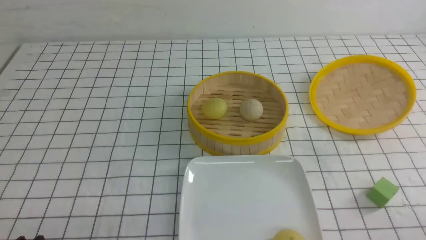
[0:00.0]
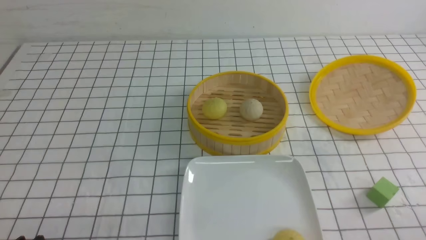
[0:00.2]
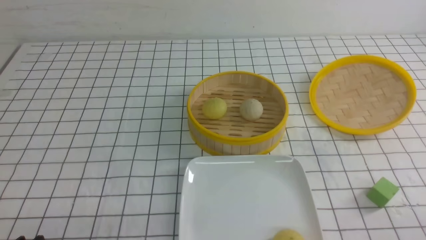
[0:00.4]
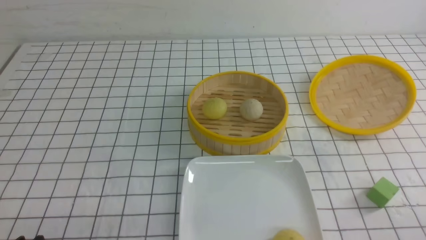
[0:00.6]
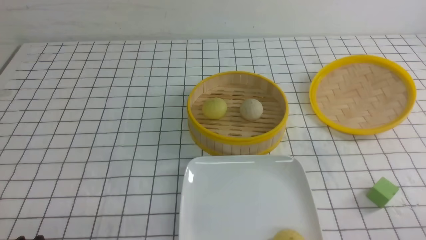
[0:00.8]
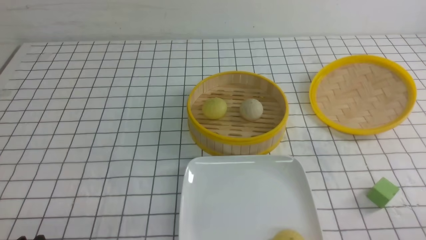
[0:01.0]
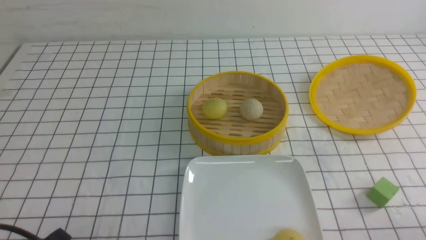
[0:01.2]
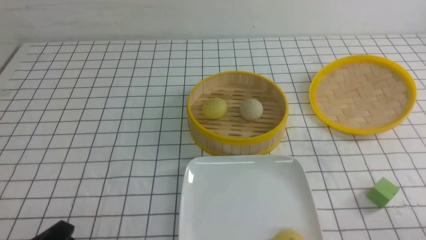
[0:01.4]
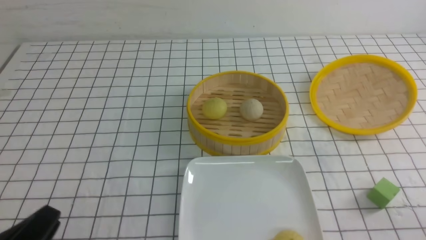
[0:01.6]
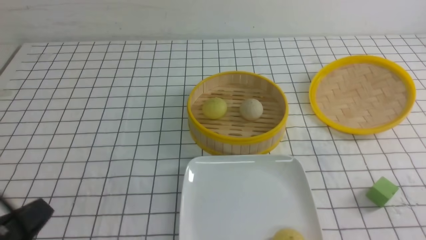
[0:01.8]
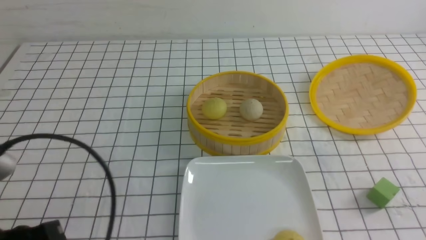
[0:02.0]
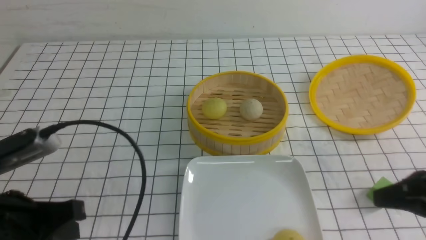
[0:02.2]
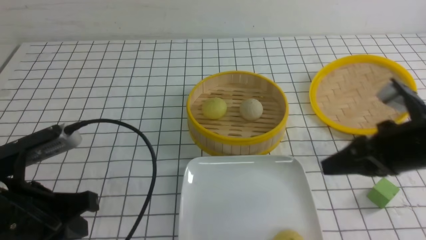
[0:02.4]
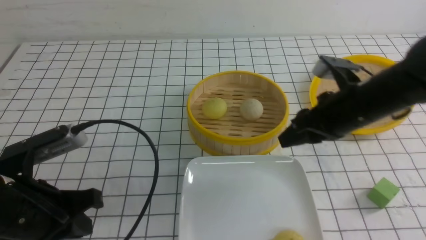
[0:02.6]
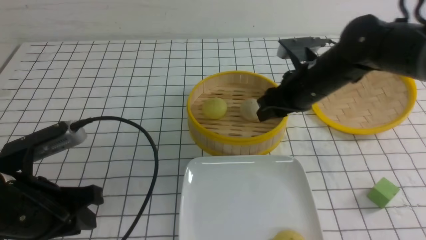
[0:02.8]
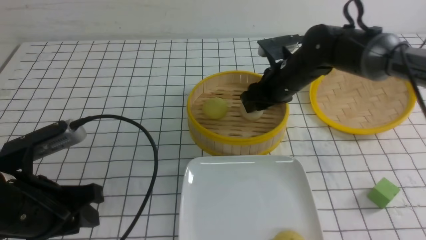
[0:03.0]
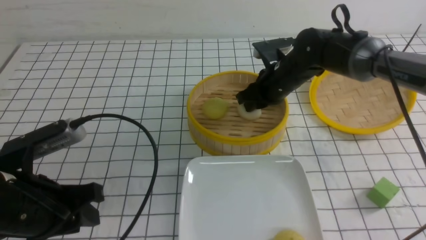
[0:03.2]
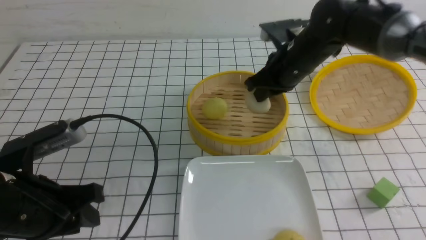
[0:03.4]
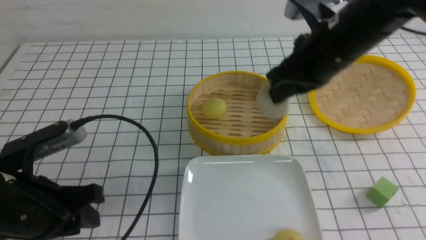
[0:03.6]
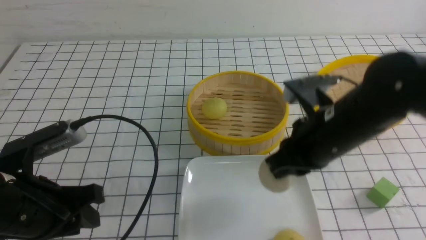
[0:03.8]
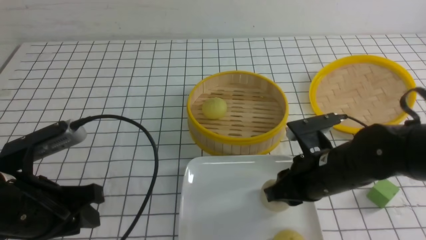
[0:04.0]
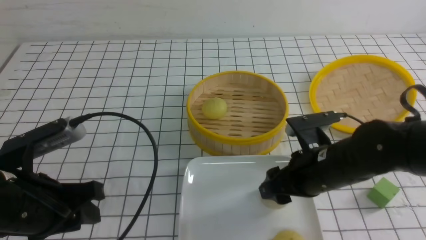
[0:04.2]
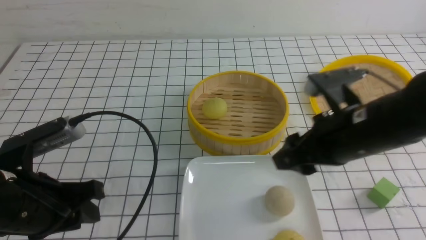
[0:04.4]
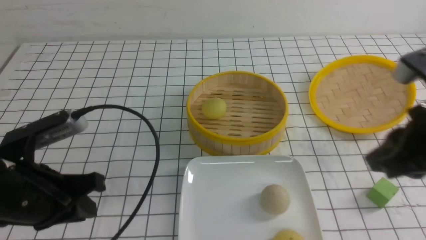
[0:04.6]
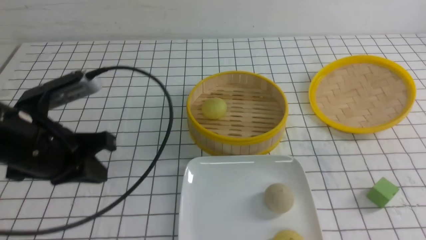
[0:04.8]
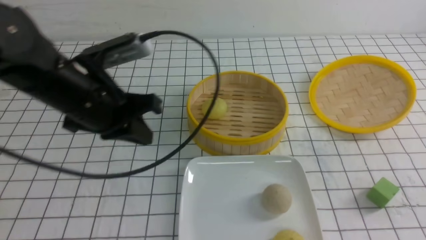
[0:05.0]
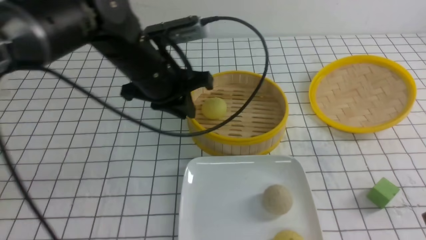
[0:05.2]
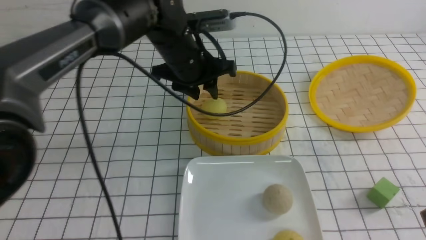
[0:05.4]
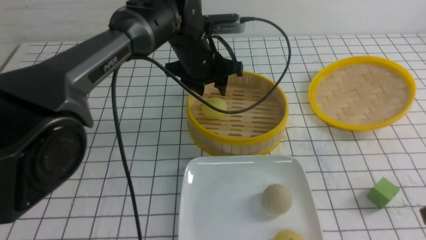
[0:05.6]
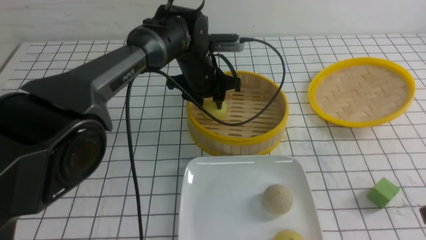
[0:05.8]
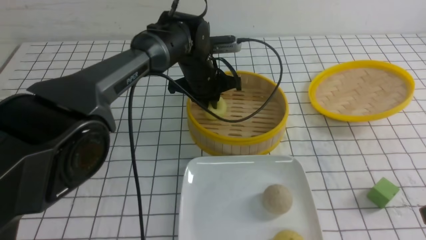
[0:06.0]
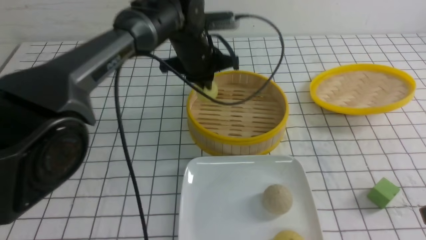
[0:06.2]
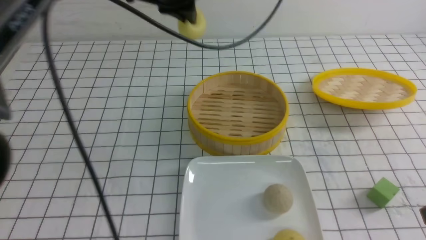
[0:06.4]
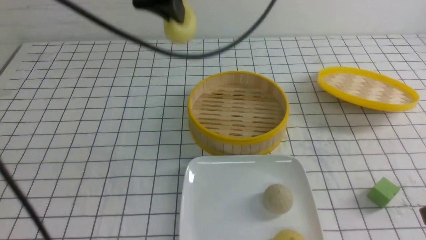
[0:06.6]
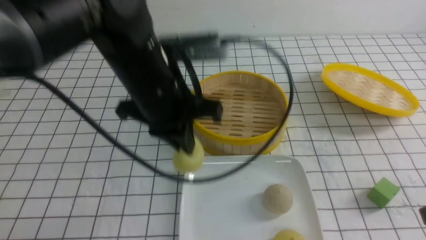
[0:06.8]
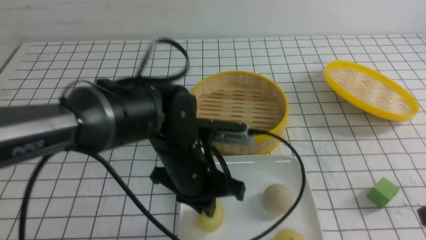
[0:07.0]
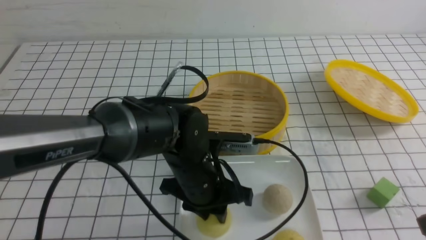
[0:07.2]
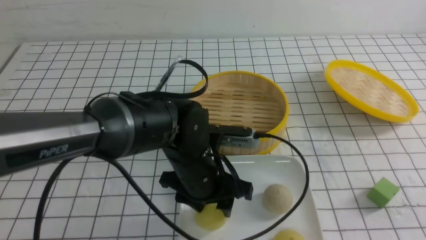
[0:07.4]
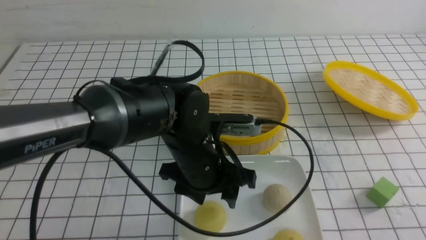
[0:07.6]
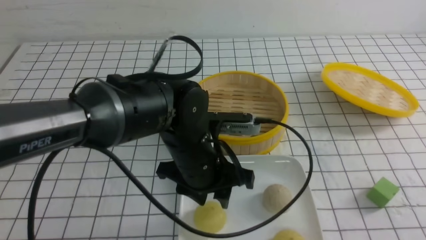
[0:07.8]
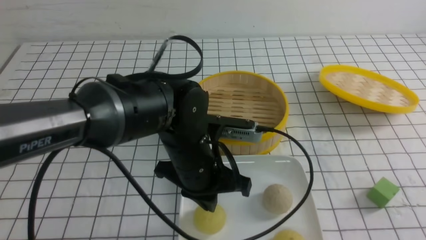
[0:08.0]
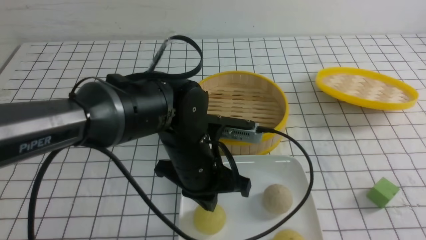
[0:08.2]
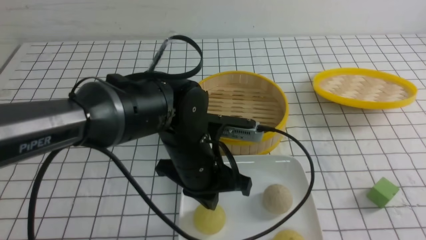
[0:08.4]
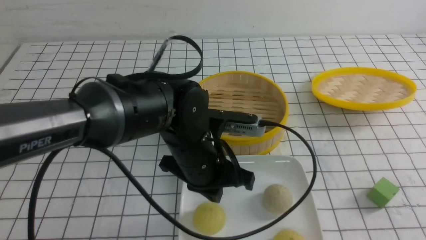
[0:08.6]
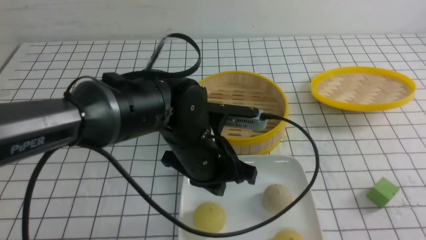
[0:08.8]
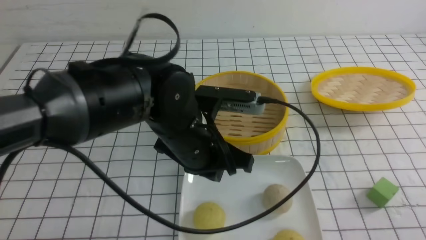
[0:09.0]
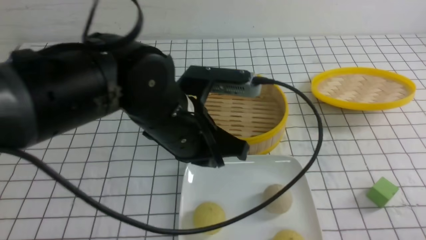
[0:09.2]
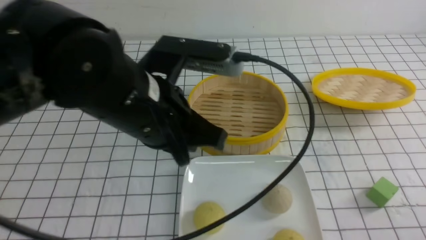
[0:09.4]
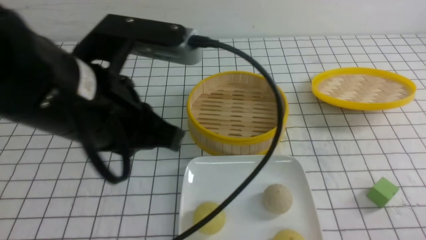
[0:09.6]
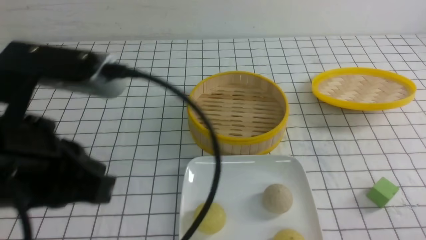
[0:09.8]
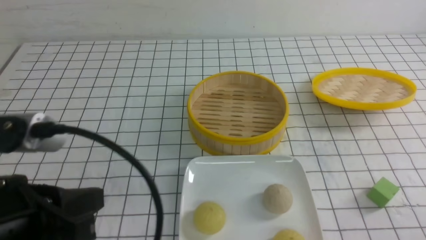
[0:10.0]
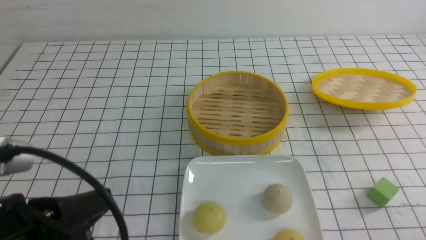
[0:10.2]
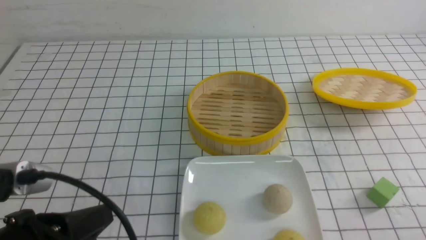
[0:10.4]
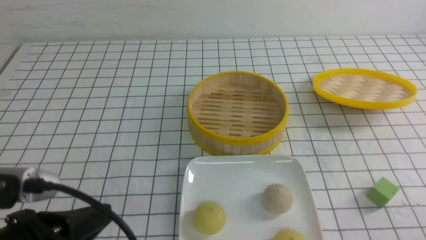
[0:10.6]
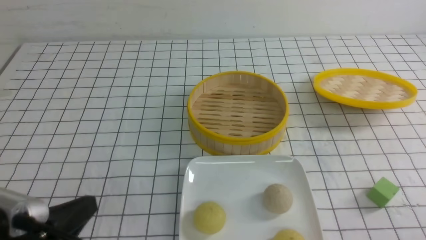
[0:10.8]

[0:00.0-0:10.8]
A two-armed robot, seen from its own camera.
Step, 0:00.0 to 0:03.2: use the right arm to grab the steamed stuffed bun that is closest to it.
Step, 0:03.4 to 0:04.2: use the right arm to put the steamed stuffed bun into the plate.
Step, 0:04.6 to 0:06.0: use the left arm to grab the steamed stuffed bun that is closest to it.
Step, 0:06.2 to 0:07.6: use the left arm to put the steamed stuffed bun into the plate.
0:00.0 to 0:01.6: The left gripper goes approximately 5 cm upward.
0:01.6 to 0:03.0: The left gripper is displaced forward by about 10 cm, and closes, then reopens, while the right gripper moves forward and to the left, about 40 cm, and opens its fingers.
0:03.0 to 0:04.6: The right gripper is displaced backward, upward and to the right by roughly 30 cm, and closes its fingers. Meanwhile the left gripper closes its fingers.
0:04.6 to 0:06.2: The right gripper shifts some 5 cm backward, and closes its fingers, while the left gripper travels forward and to the right by approximately 30 cm, and opens, then closes again.
0:06.2 to 0:07.8: The right gripper travels backward by about 10 cm, while the left gripper shifts some 20 cm backward and downward, and opens up.
0:07.8 to 0:09.2: The left gripper goes roughly 10 cm upward, and closes its fingers; the right gripper is displaced downward by some 10 cm.
0:09.2 to 0:10.8: The left gripper moves to the left and backward, roughly 25 cm.

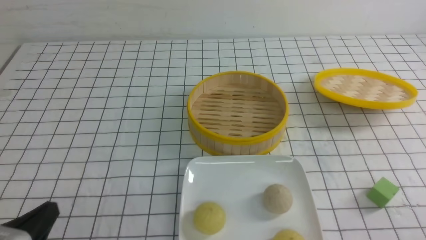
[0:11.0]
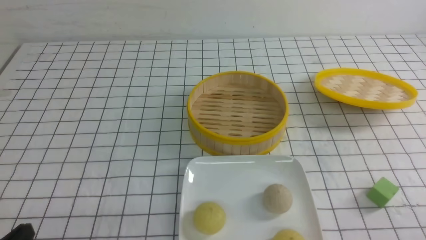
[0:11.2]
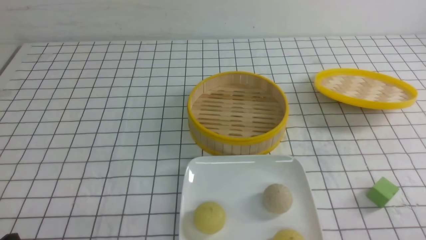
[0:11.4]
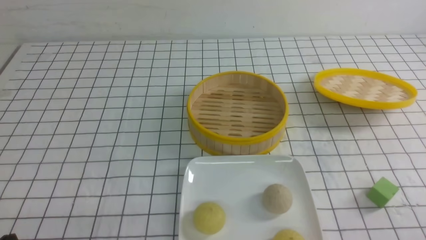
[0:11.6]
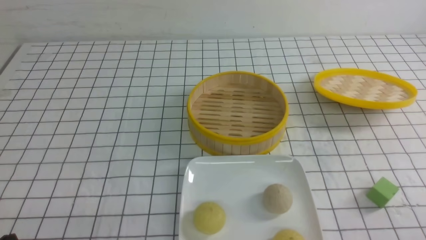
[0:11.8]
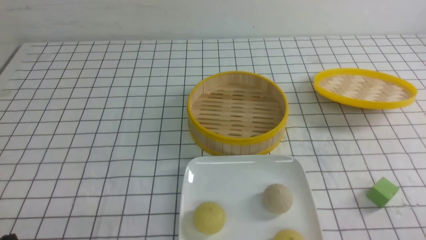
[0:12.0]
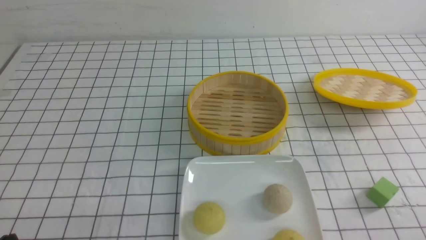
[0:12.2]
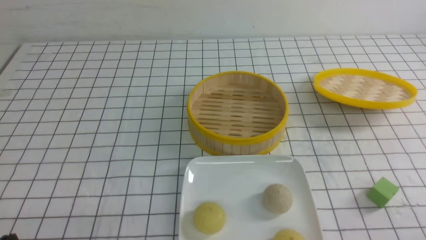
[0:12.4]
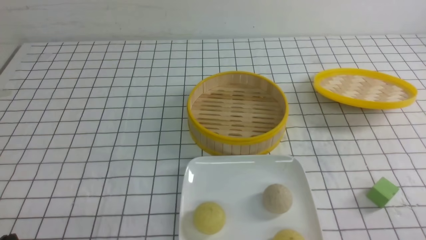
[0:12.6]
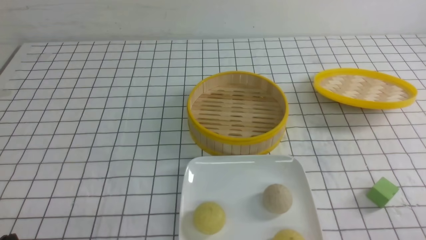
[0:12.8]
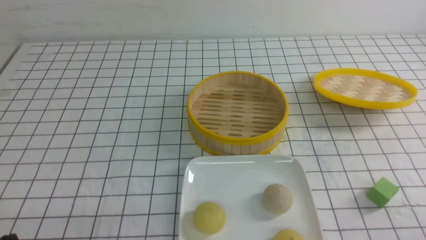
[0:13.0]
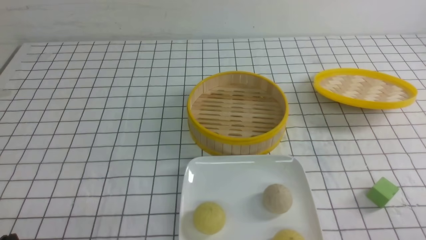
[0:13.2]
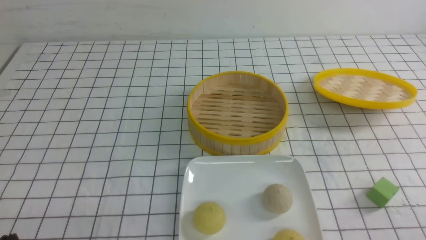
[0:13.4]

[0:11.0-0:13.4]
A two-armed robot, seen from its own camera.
0:11.0 to 0:12.2: The grippers move only a little.
0:12.2 to 0:13.4: The two grippers keep their place.

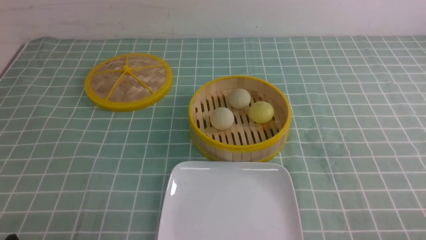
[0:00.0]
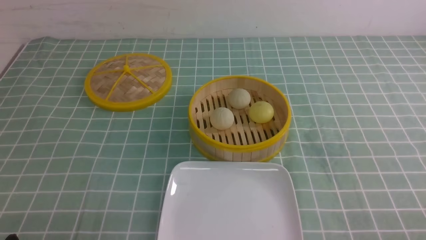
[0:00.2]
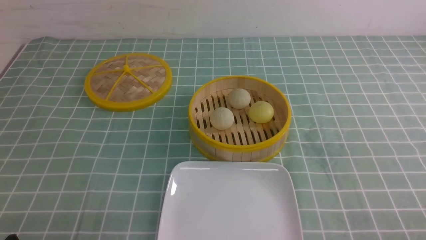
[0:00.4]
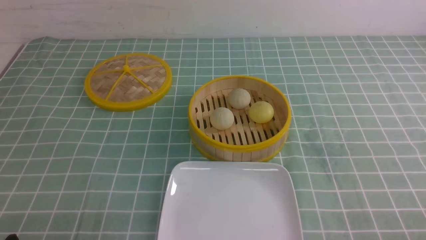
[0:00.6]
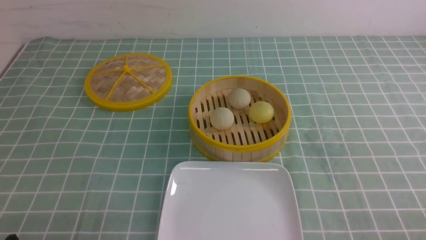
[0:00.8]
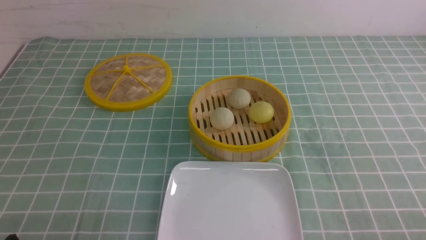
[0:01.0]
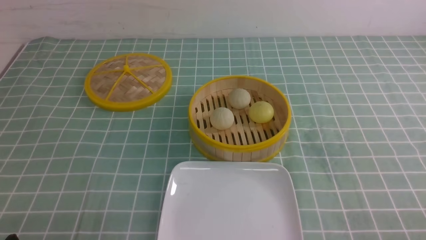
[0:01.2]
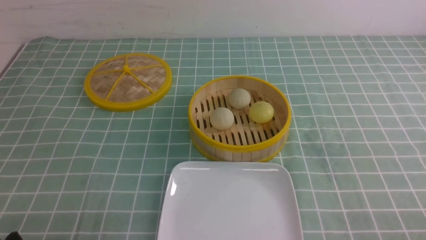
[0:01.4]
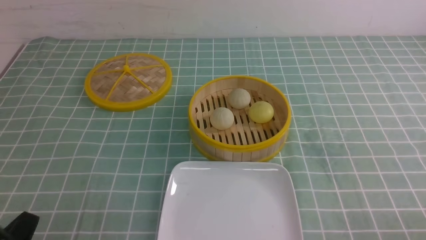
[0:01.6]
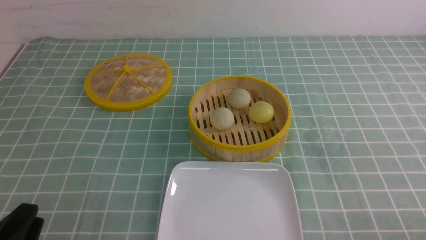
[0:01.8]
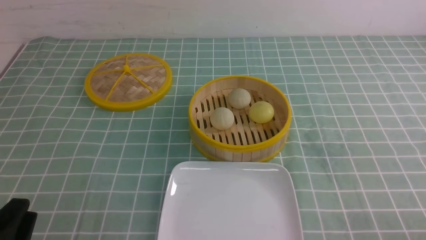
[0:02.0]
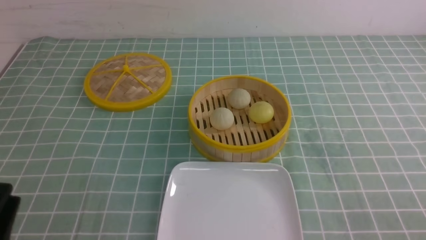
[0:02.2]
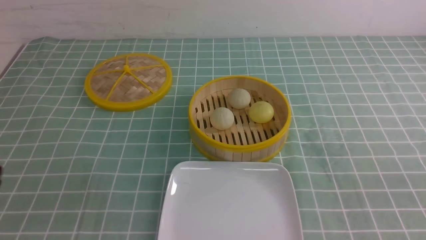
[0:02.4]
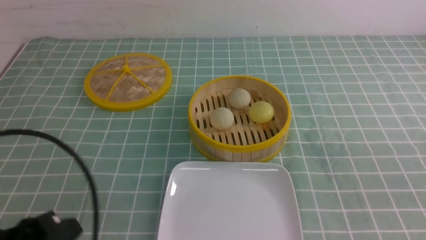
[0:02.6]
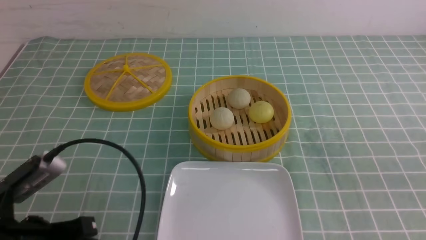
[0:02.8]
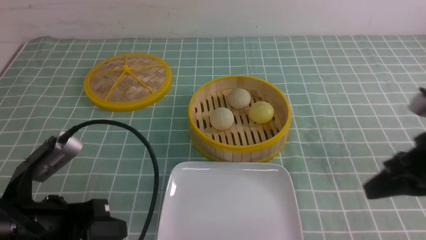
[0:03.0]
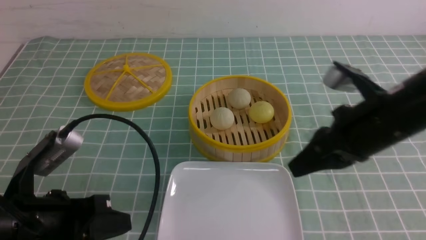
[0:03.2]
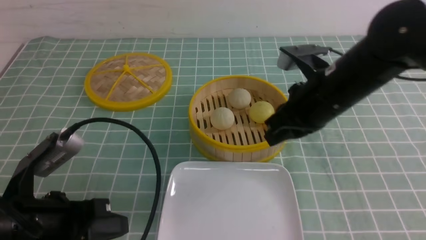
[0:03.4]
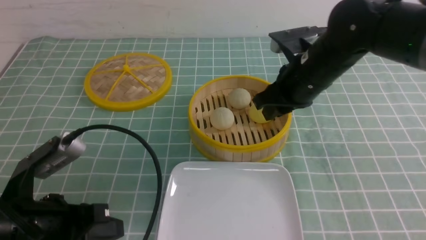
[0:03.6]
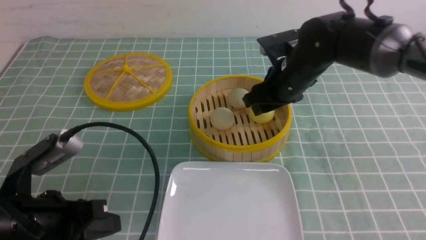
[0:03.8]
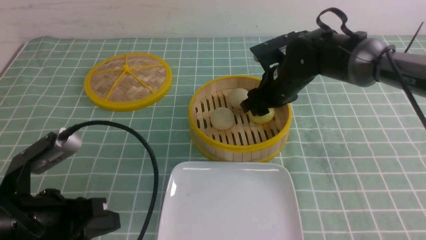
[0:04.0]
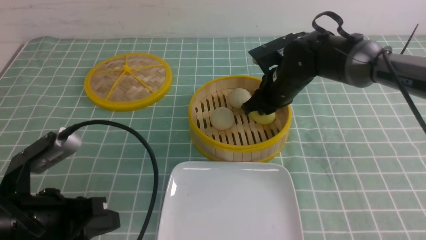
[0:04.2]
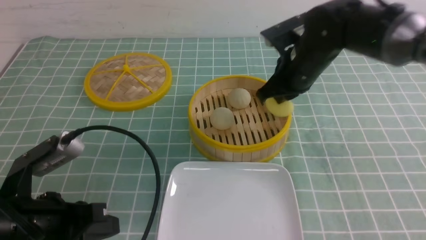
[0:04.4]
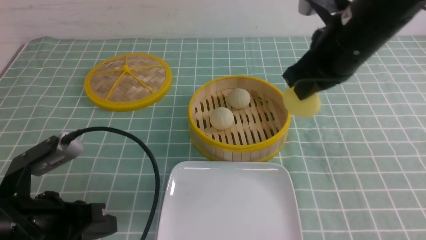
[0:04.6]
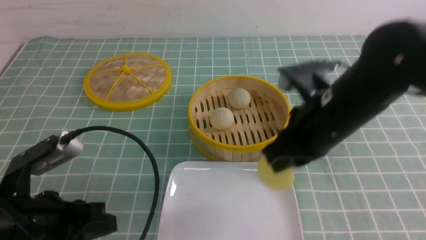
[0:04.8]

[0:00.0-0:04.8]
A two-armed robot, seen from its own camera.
Step, 0:00.0 to 0:04.2: use the right arm to grab the steamed stuffed bun that is closest to it.
0:01.6 to 0:03.2: The right gripper is displaced forward, to the left and upward by approximately 25 cm, and closes; the left gripper heads forward and upward, covering about 10 cm, and closes its fingers.
0:03.2 to 0:04.8: The right gripper moves to the left, some 5 cm, goes forward and returns, approximately 15 cm each way, and opens and closes again.
